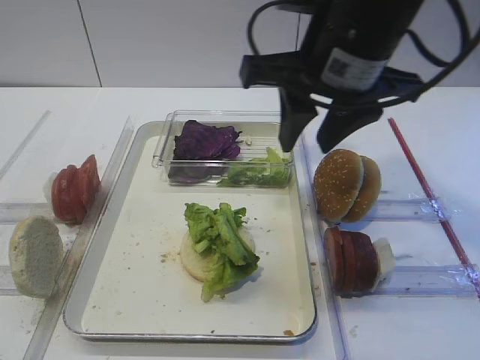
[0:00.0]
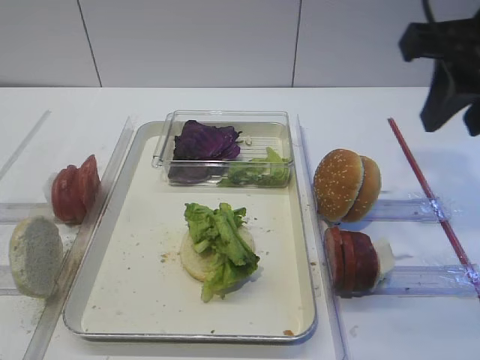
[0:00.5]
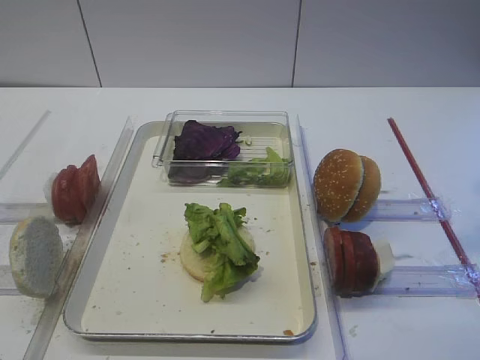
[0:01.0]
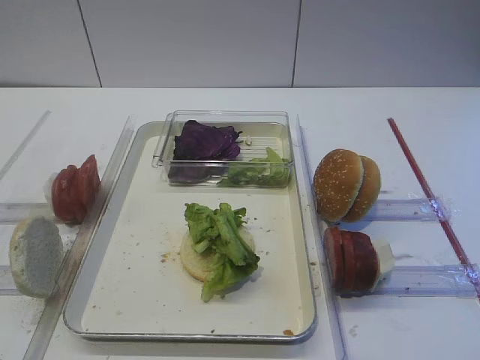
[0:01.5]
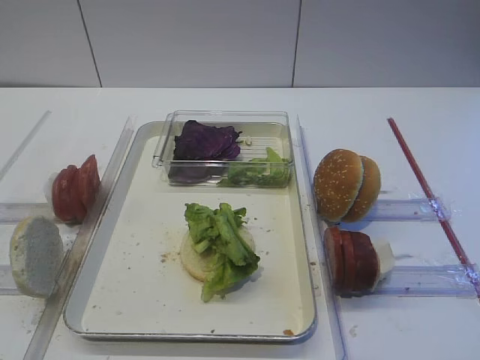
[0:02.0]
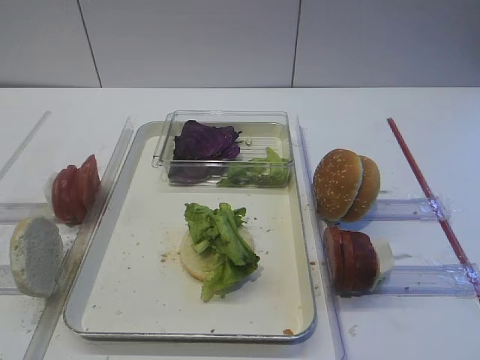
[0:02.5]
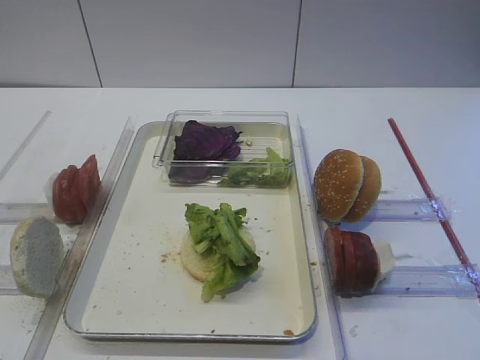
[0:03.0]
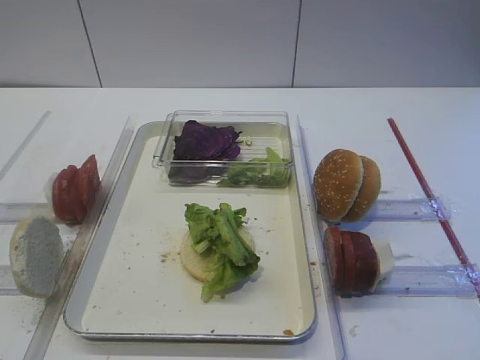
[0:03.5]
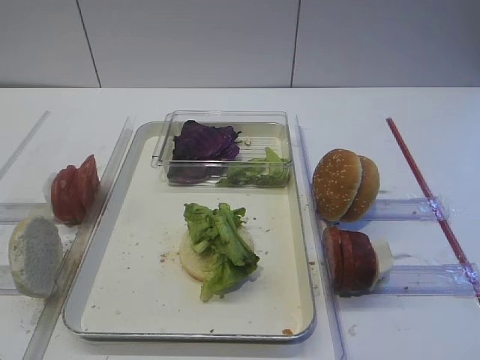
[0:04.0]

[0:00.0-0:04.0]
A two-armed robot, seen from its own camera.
0:00.0 to 0:02.0: The right gripper shifts about 30 cm backward and to the right.
